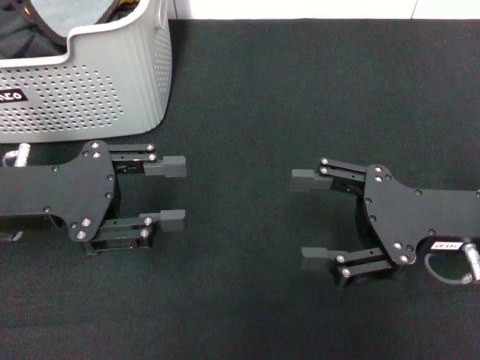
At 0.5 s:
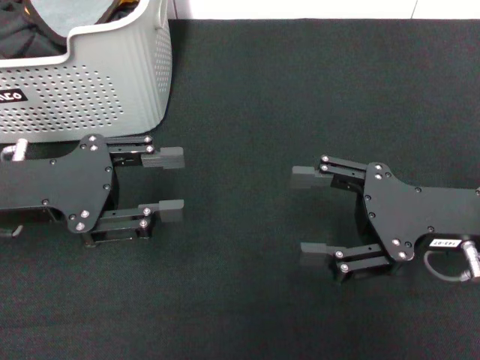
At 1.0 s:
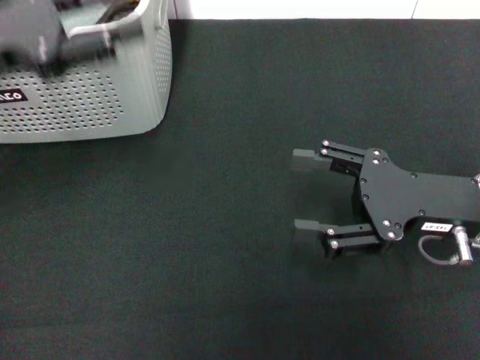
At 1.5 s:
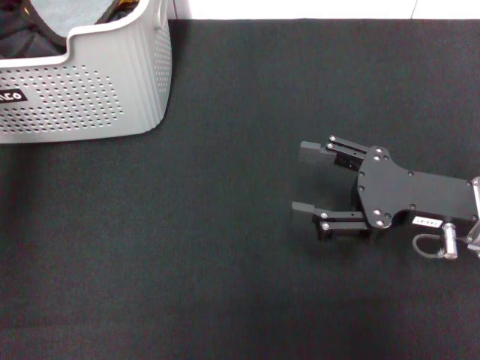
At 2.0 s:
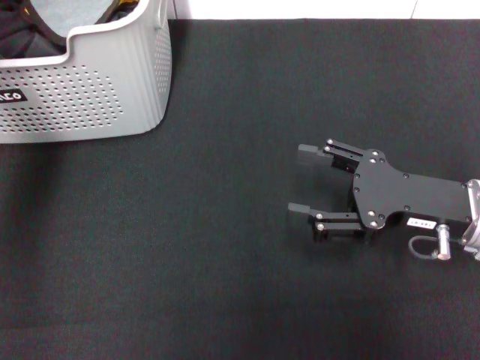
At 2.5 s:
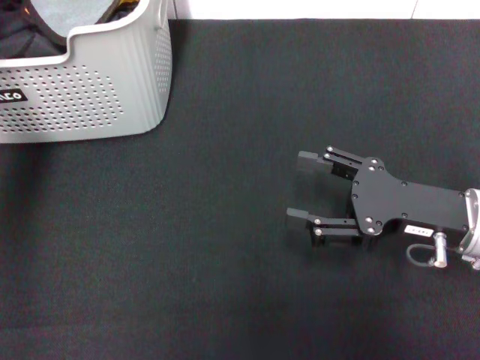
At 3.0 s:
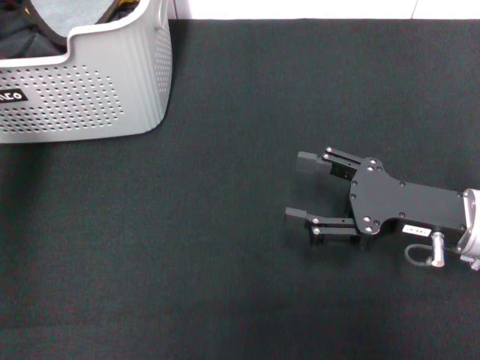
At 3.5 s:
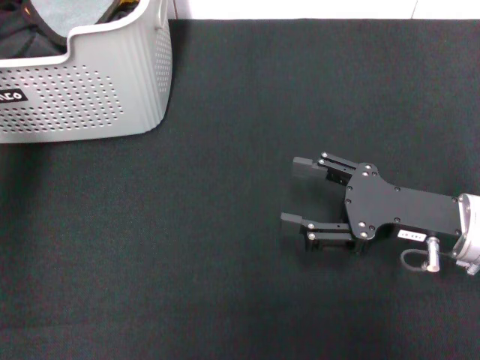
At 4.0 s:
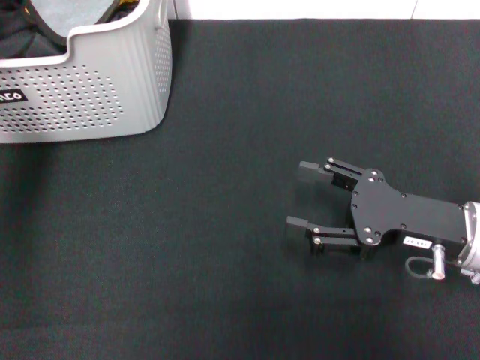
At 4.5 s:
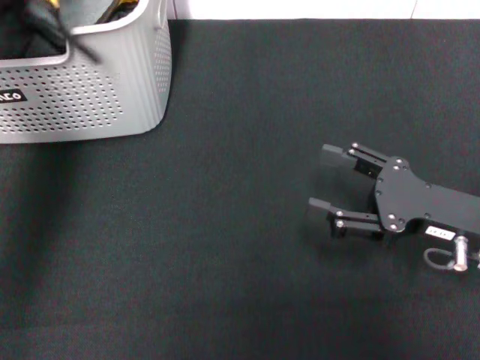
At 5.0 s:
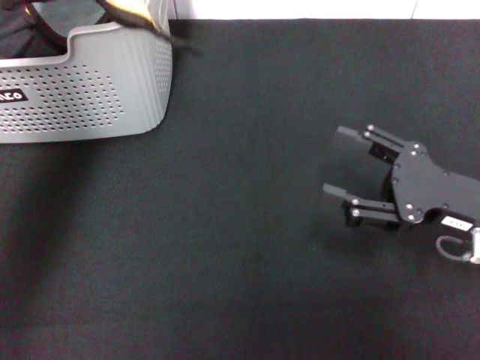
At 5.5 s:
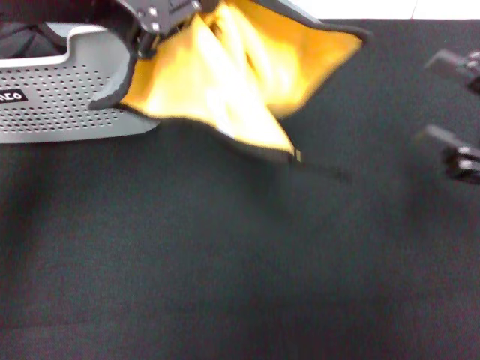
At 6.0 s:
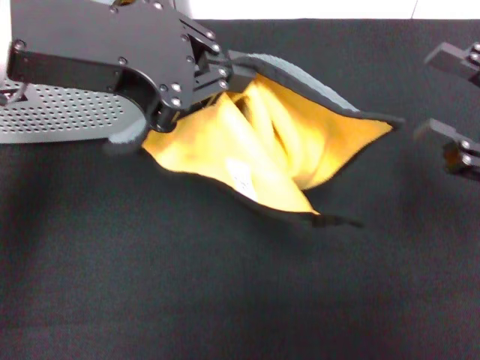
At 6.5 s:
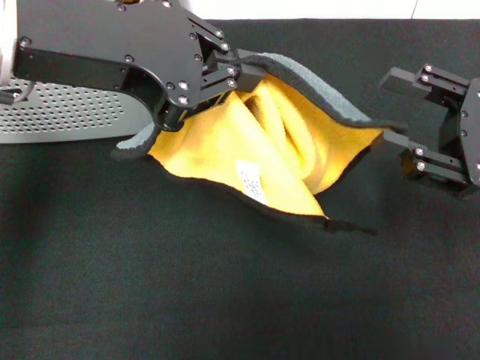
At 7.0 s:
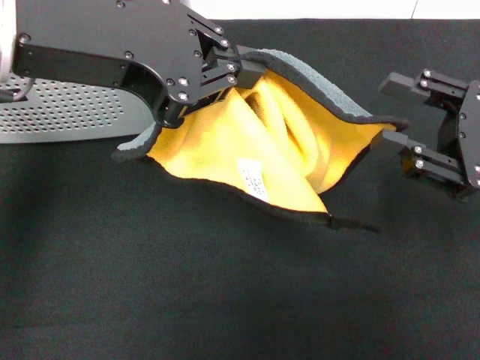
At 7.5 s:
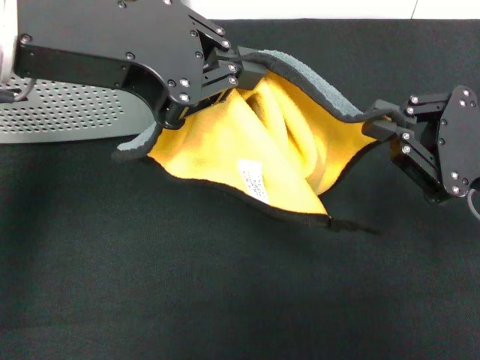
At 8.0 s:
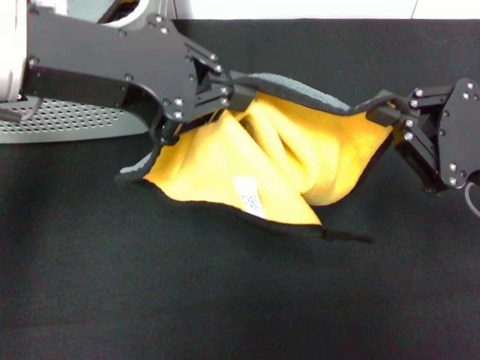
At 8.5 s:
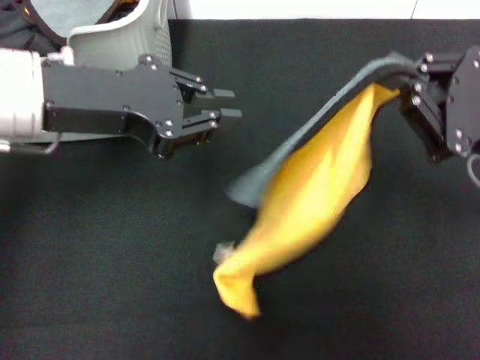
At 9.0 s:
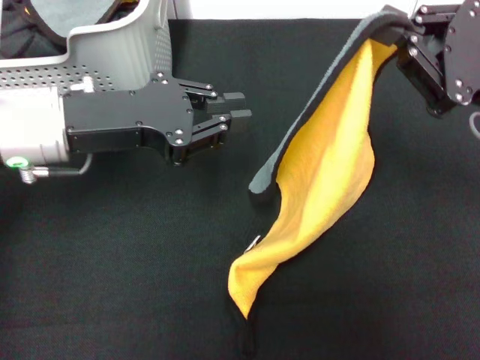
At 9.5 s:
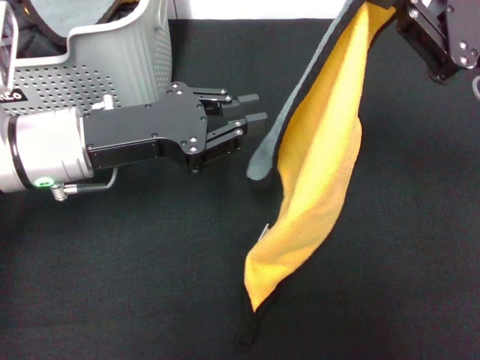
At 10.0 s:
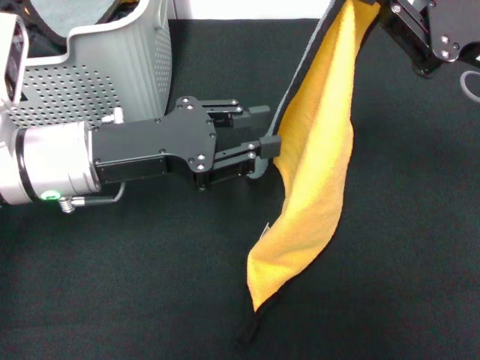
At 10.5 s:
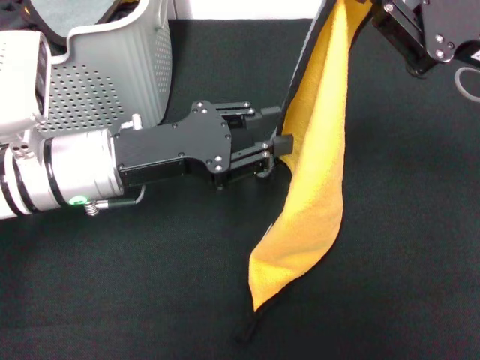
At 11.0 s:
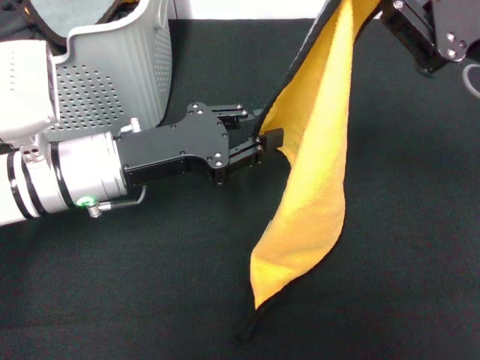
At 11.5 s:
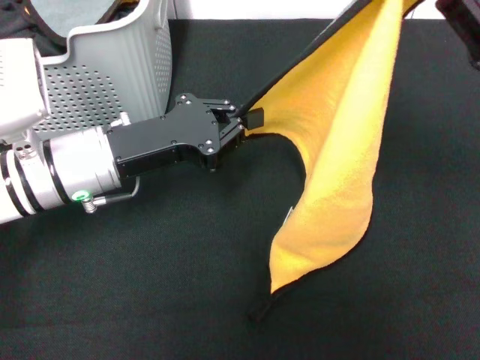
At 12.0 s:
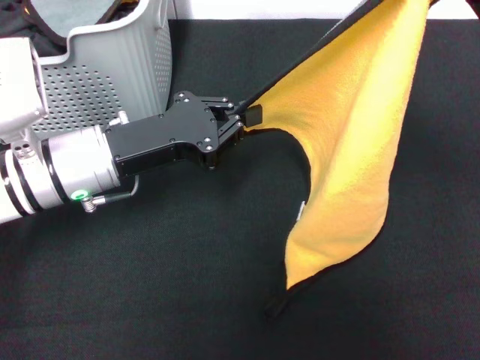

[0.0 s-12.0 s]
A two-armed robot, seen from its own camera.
Task of the whole recording: pick up the towel from the storage box and lay it flat on the black tablecloth.
Step, 0.0 to 3.5 s: Pick up a towel with the left gripper.
Step, 4.0 to 7.5 s: Spread the towel flat with the left gripper.
0.0 to 2.0 s: The left gripper is displaced upward and forward by some 20 cm.
2.0 to 4.0 s: The left gripper shifts some 5 cm downward, and closes its fingers.
4.0 to 6.0 s: The left gripper moves backward, to the right and upward, roughly 20 cm. Meanwhile the right gripper moves to the right and upward, approximately 10 cm.
6.0 to 8.0 s: The right gripper closes its fingers.
8.0 to 10.0 s: The left gripper moves downward, about 15 cm, and opens up. Meanwhile the right gripper is displaced upward and forward by approximately 10 cm.
10.0 to 12.0 s: The left gripper closes its fingers.

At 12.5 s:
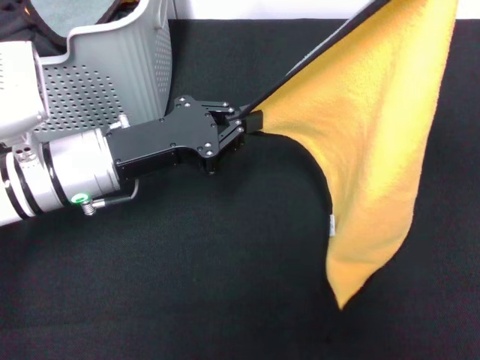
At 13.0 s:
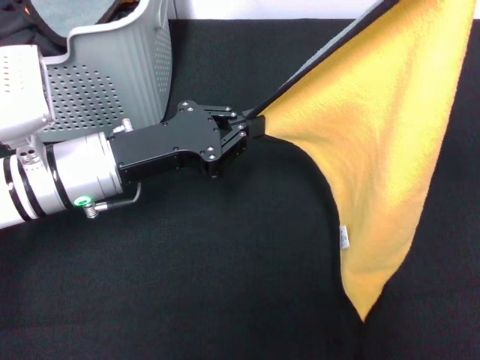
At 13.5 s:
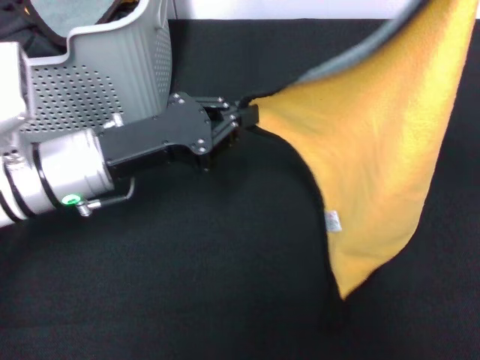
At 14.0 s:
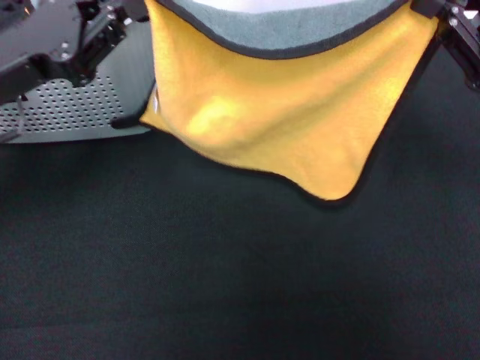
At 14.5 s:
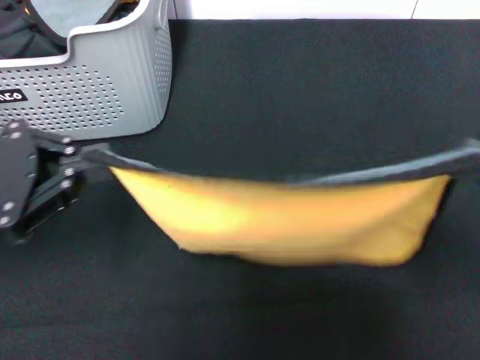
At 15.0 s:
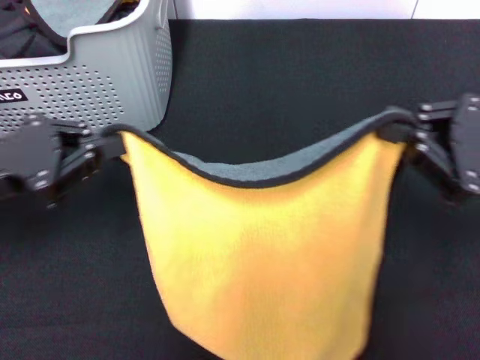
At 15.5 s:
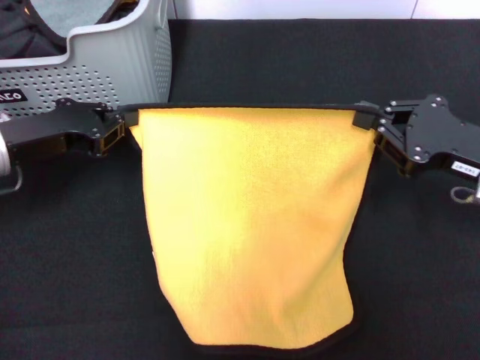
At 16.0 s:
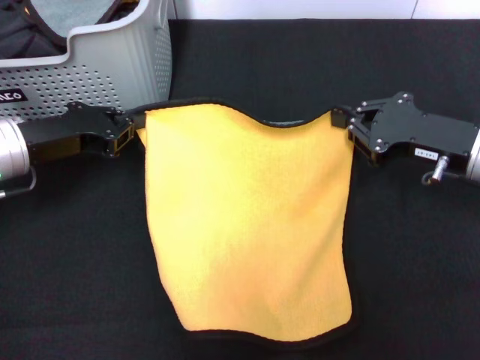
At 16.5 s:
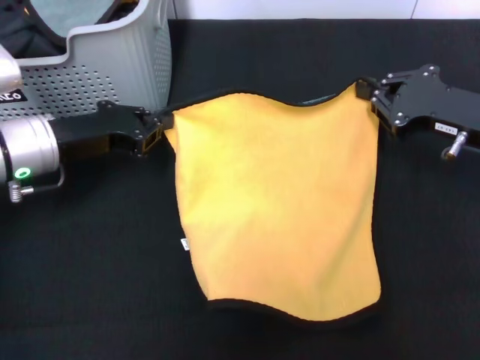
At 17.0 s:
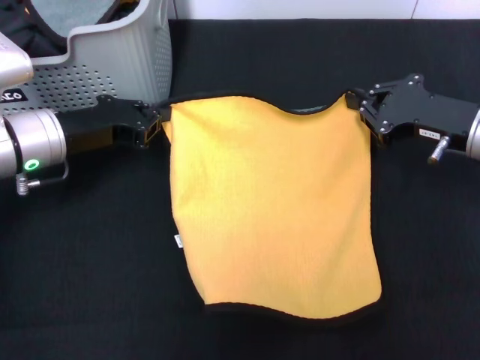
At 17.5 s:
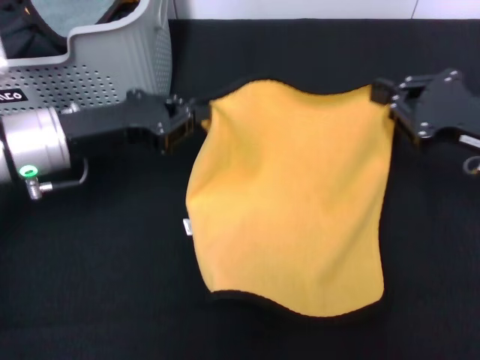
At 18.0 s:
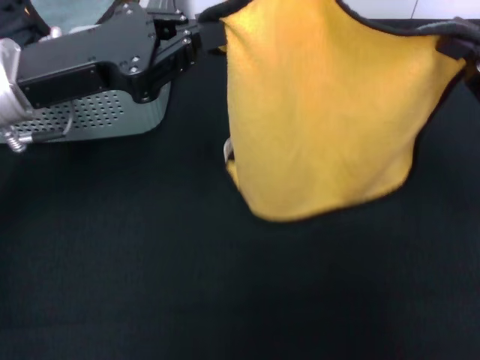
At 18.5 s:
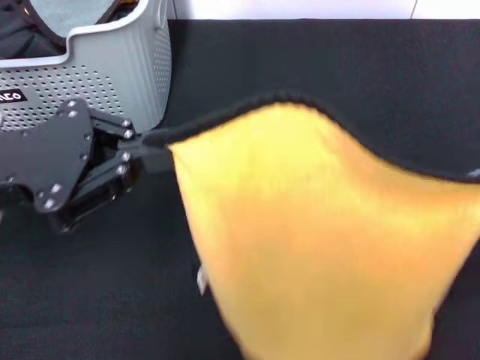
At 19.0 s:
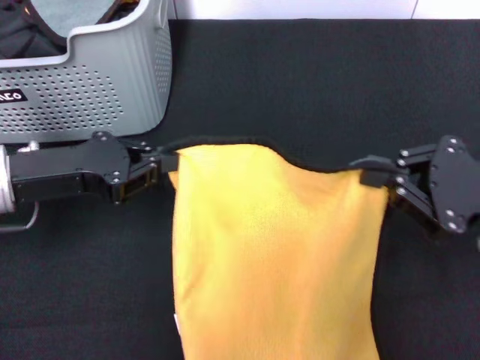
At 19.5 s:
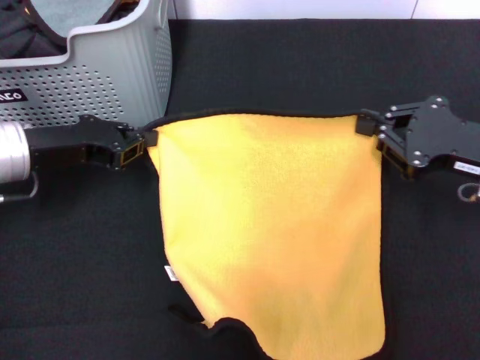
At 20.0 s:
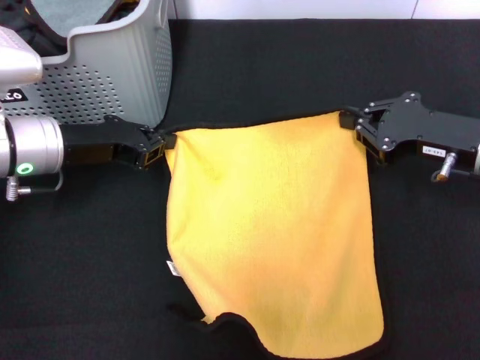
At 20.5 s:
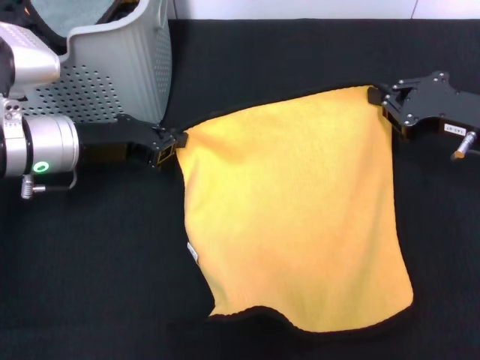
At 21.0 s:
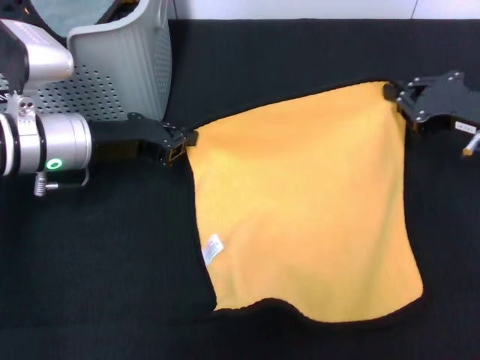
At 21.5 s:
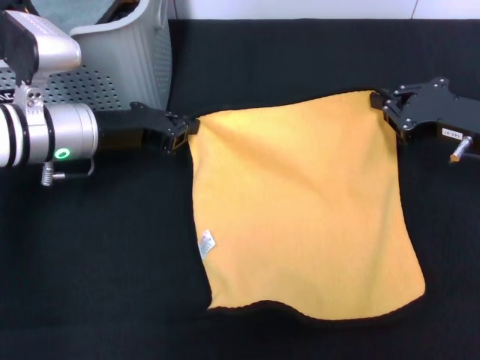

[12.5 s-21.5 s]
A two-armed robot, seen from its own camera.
Task of the whole recording: pick up the towel from the storage box and lay it flat on the black tablecloth.
12.5 to 14.5 s: The left gripper shifts roughly 15 cm to the left, backward and upward. Meanwhile the right gripper shifts roughly 10 cm backward and downward.
14.5 to 17.0 s: The right gripper shifts about 15 cm forward and downward. Meanwhile the left gripper is displaced forward, downward and to the right by some 15 cm.
17.0 to 19.5 s: The right gripper travels backward and back again, some 15 cm each way; the left gripper moves approximately 10 cm upward and comes back.
19.5 to 21.5 s: The left gripper is displaced to the right by approximately 5 cm. Meanwhile the right gripper shifts approximately 5 cm forward.

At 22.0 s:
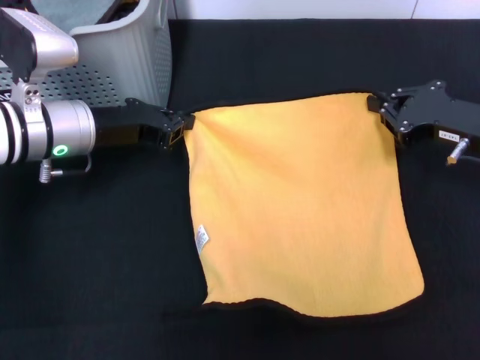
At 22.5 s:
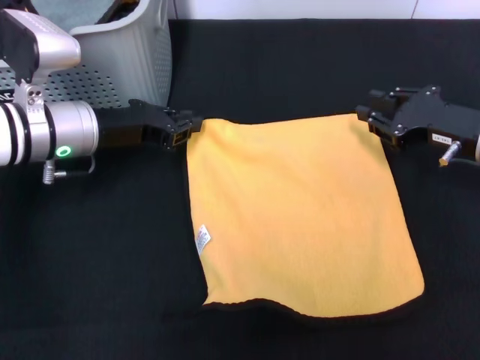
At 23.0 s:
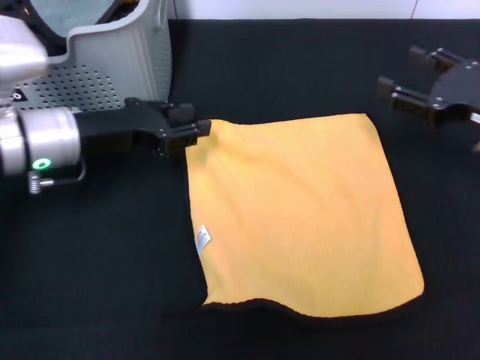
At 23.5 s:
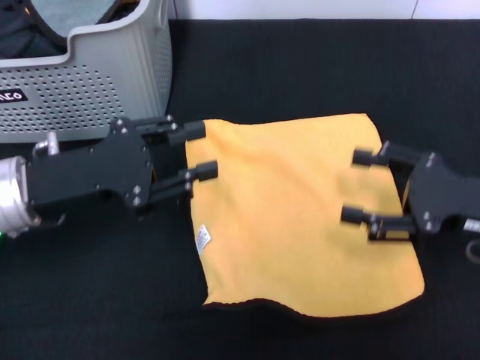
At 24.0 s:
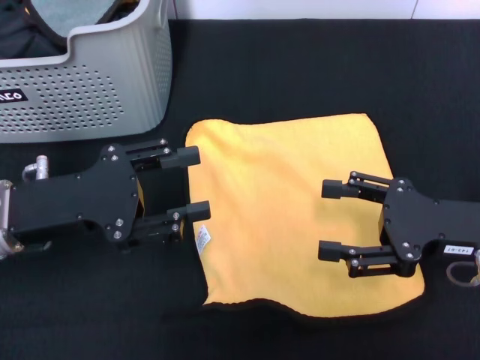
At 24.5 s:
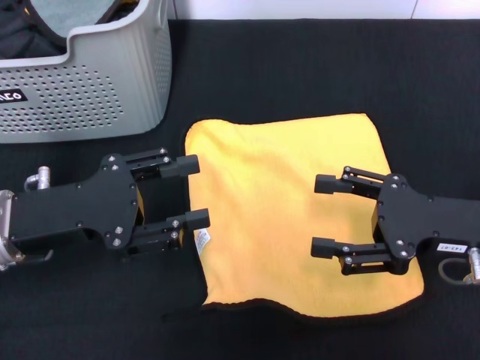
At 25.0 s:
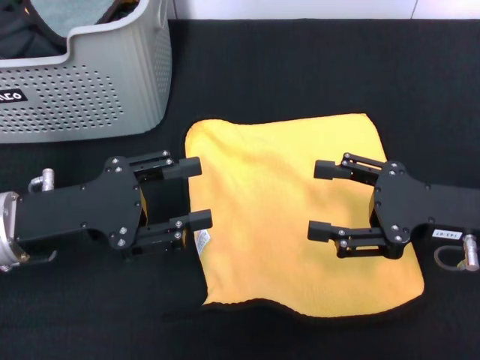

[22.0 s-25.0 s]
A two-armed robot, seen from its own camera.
Task of the whole recording: pick up the towel from the storage box and lay it flat on the black tablecloth.
22.0 to 23.5 s: The two grippers go roughly 10 cm backward. The left gripper opens. The right gripper opens.
23.5 to 25.0 s: There are only small adjustments of the grippers.

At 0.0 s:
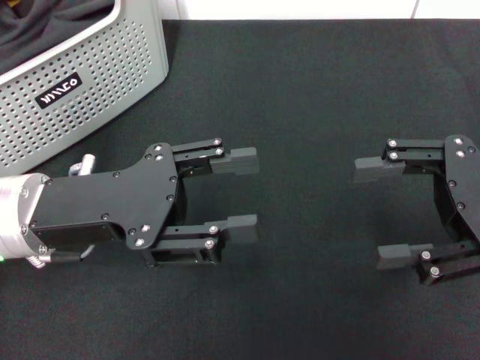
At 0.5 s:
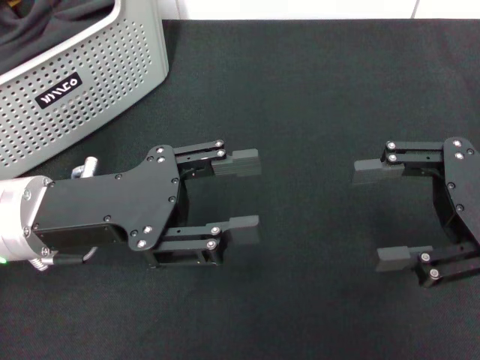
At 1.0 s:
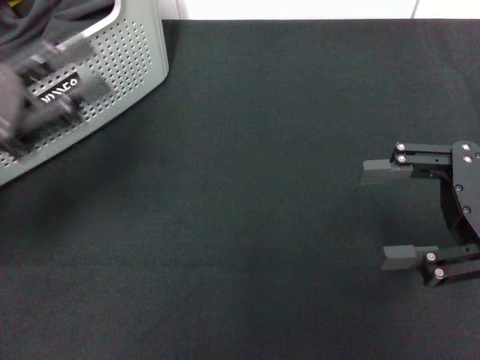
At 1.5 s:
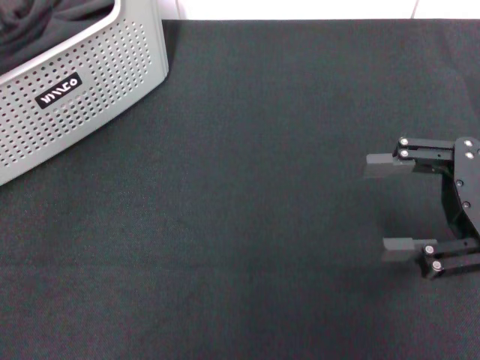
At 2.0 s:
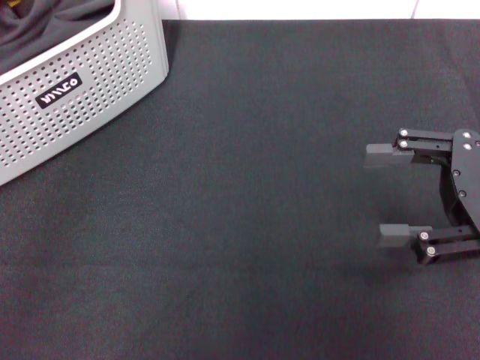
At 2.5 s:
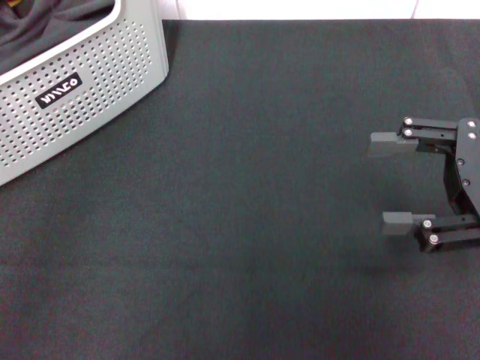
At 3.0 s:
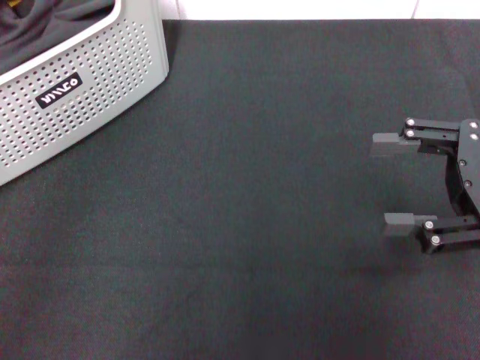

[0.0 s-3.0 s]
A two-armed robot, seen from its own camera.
Task of the whole recording: pick up the towel from the storage box and lay it flat on the black tablecloth.
0.0 to 1.5 s: The left gripper is displaced to the left and upward by about 15 cm.
1.5 to 3.0 s: The left gripper shifts approximately 10 cm backward and to the left.
